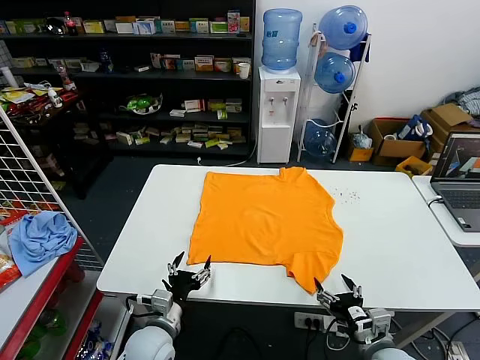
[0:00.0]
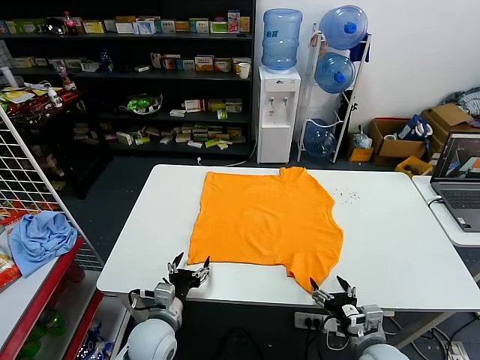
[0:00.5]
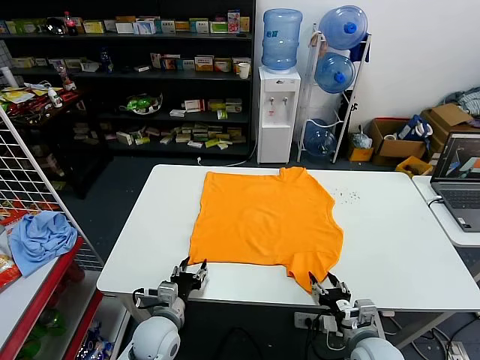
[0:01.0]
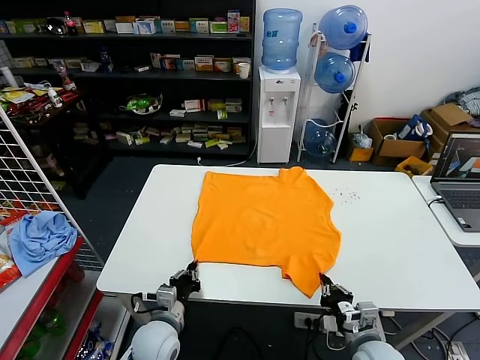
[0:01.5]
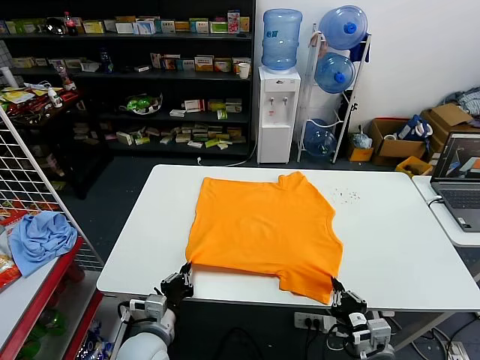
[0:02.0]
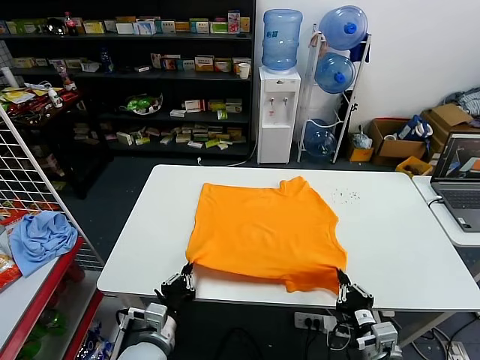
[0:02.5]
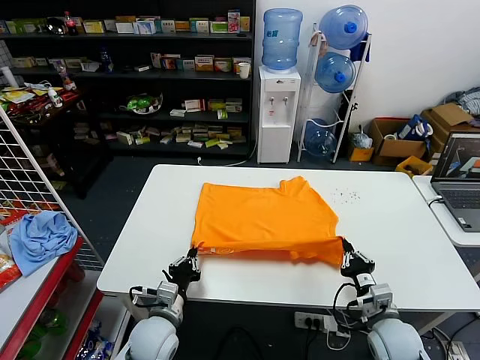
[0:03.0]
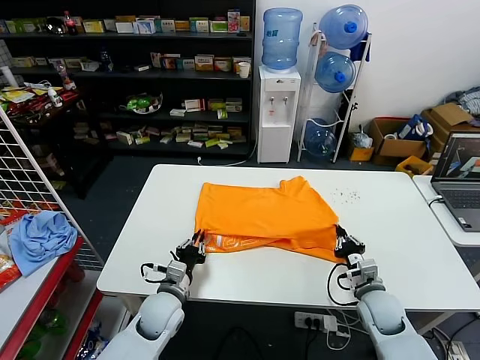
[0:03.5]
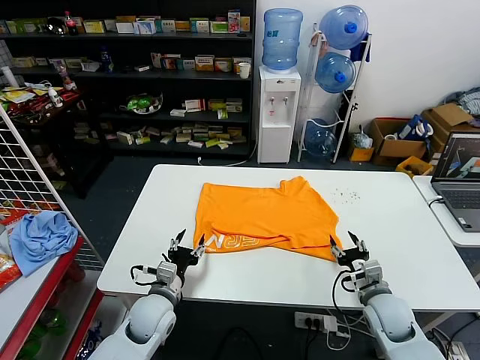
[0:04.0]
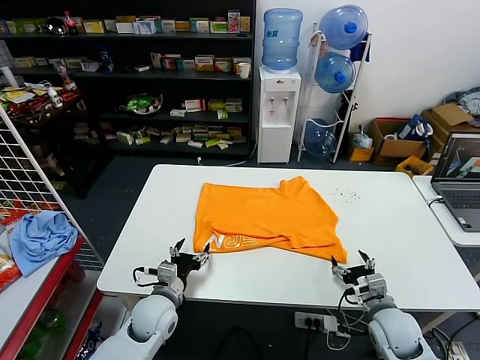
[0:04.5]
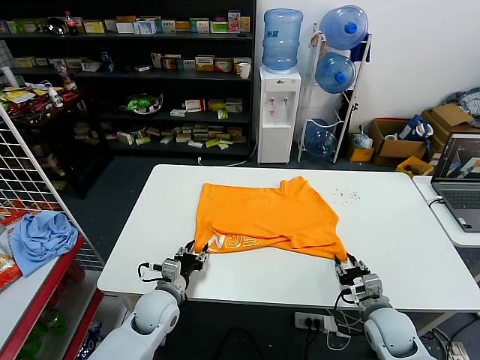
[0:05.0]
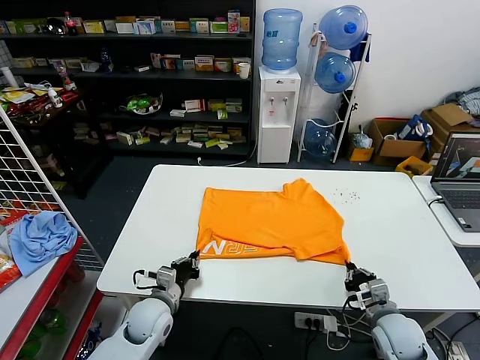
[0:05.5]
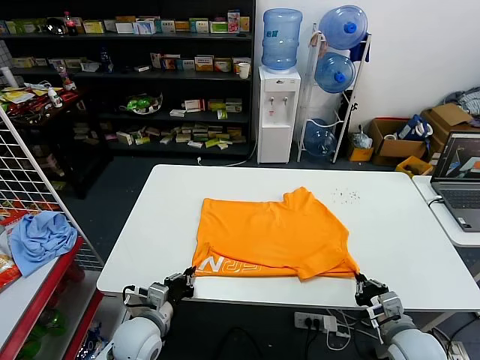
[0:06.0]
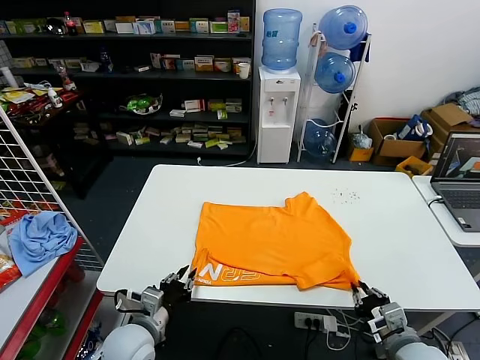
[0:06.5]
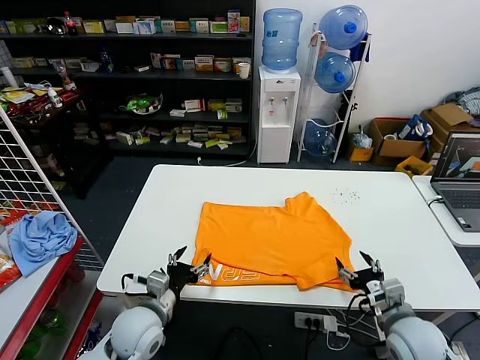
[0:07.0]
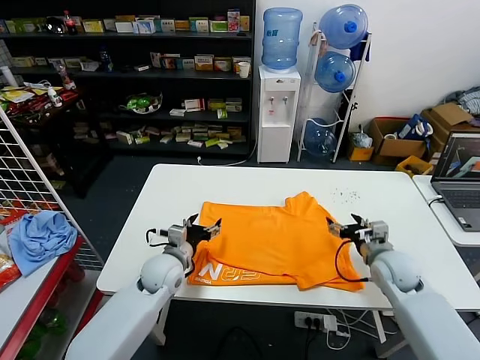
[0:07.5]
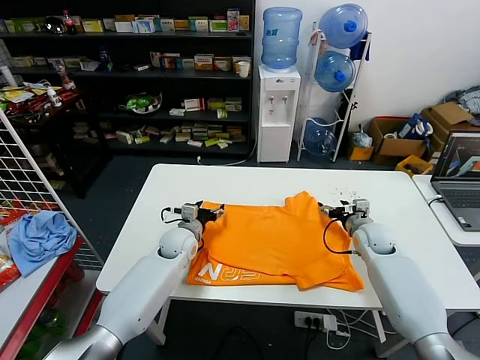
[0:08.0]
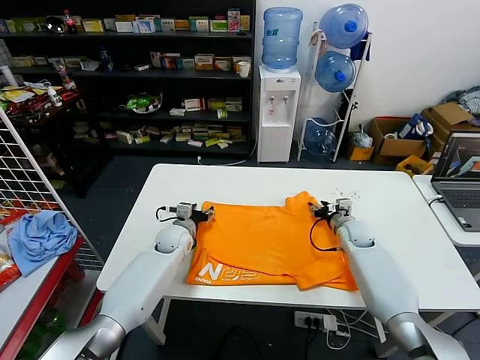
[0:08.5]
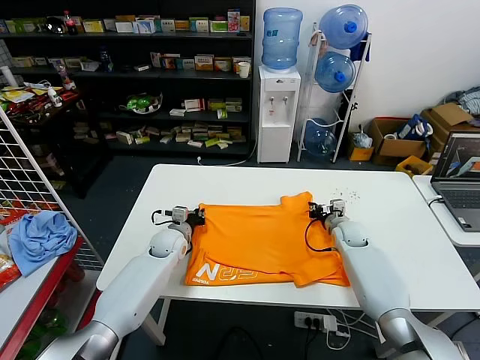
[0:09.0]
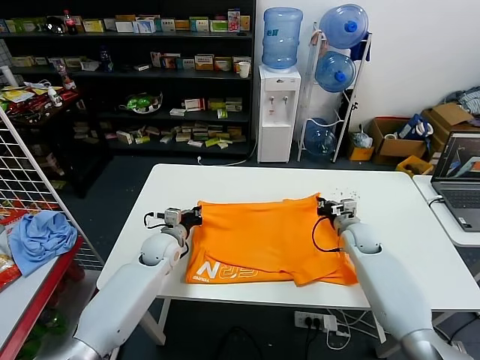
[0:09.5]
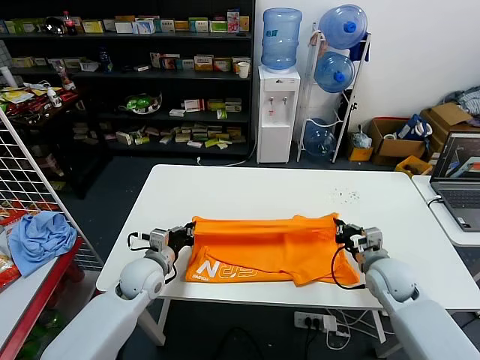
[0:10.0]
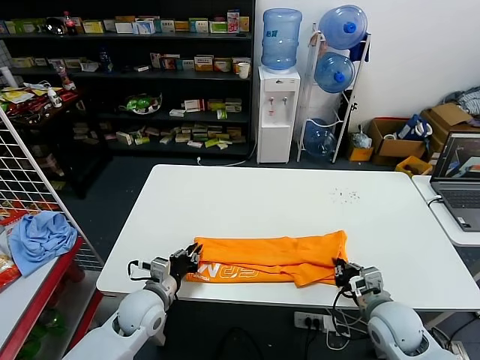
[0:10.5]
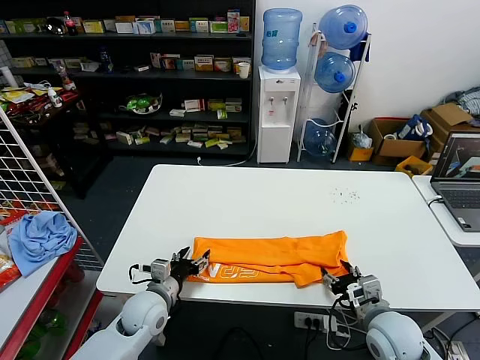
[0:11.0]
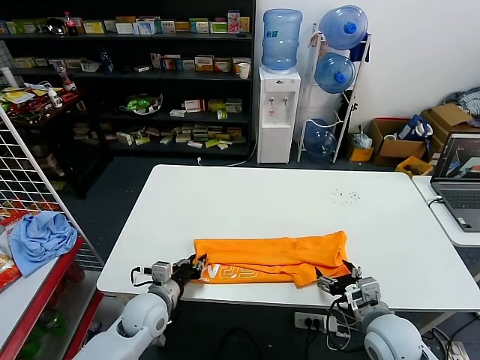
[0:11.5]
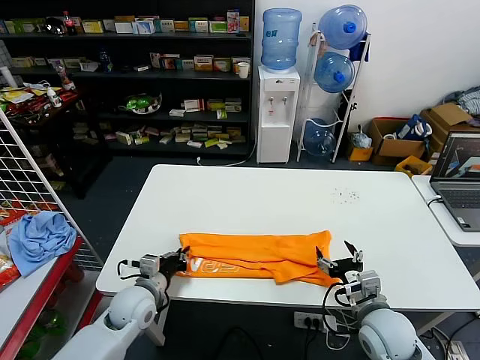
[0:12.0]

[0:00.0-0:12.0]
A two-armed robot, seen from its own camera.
Task of the whole recording: fold and organize the clothes.
Step, 0:00.0 to 0:01.5: use both grippers simultaneously to clamp the lower edge of the clothing fabric.
Step, 0:02.0 to 0:03.5: use both grippers to drag the lower edge of the fabric forward and fold it over the upper edge.
Step, 0:04.0 to 0:06.5: Drag the clothes downward with both gripper.
Step, 0:07.0 to 0:09.0: use both grippers simultaneously to clamp the upper edge of the clothing fabric.
Step, 0:09.5 to 0:10.5: use both grippers to drag the upper edge of the fabric backward and fold it over the lower edge.
Step, 0:11.0 to 0:11.5: use the left gripper to clamp the left edge of the fabric.
0:02.0 to 0:04.0: The right gripper travels forward by about 15 cm, and opens, while the left gripper goes some 10 cm forward, and opens.
0:04.0 to 0:06.0: The right gripper is displaced backward by about 10 cm, and closes its fingers, while the left gripper closes.
0:06.0 to 0:08.0: The two grippers go approximately 25 cm forward. The right gripper opens up. Meanwhile the left gripper opens up.
0:08.0 to 0:10.0: The left gripper is displaced backward and to the left by roughly 10 cm, and closes up. The right gripper is displaced backward by about 10 cm, and closes up.
0:10.0 to 0:12.0: The right gripper goes some 15 cm backward and to the left, and opens its fingers, while the left gripper travels backward by about 10 cm, and opens, then closes again.

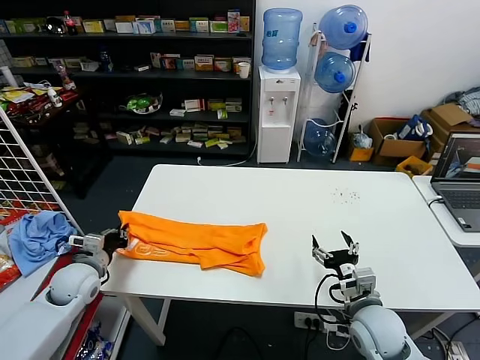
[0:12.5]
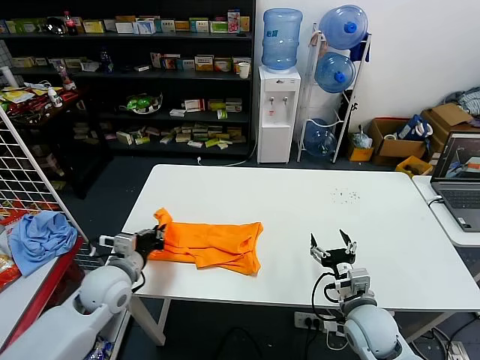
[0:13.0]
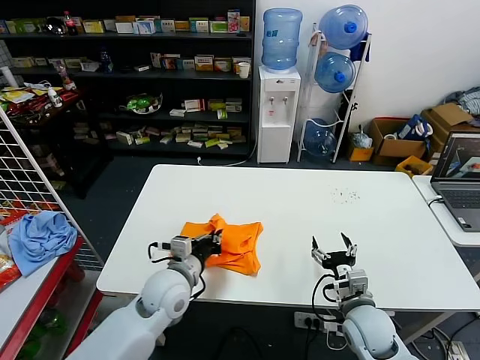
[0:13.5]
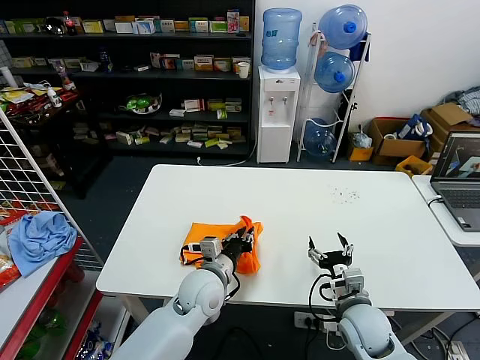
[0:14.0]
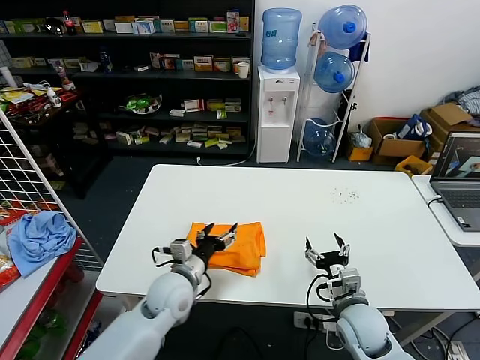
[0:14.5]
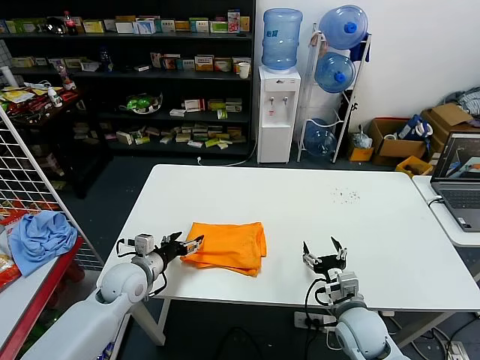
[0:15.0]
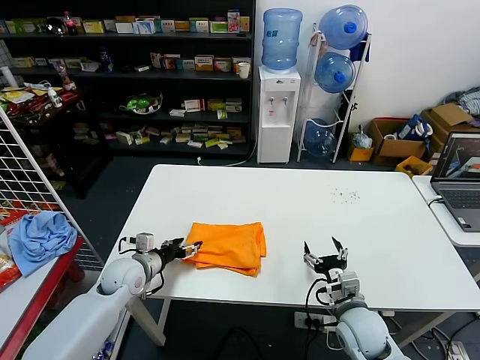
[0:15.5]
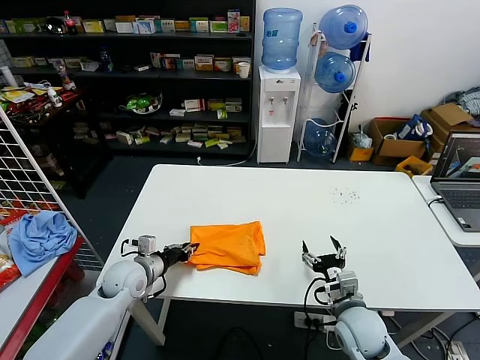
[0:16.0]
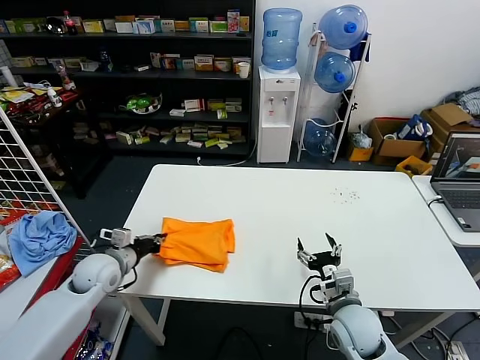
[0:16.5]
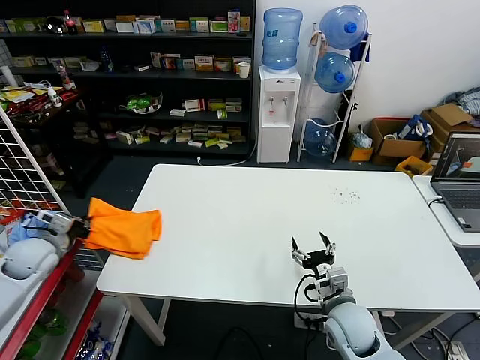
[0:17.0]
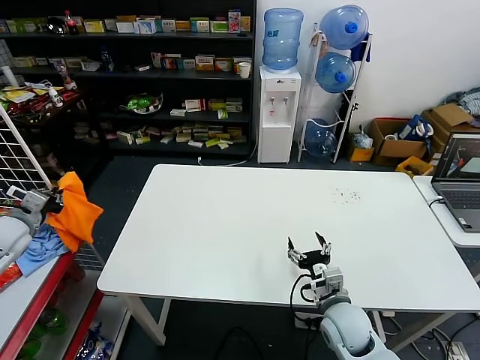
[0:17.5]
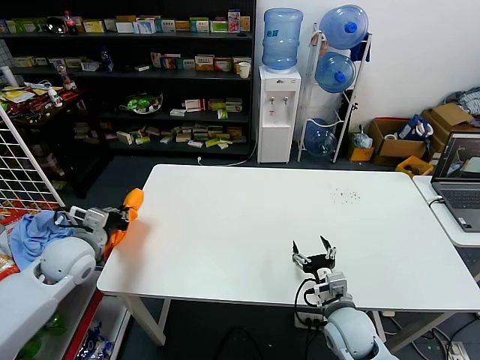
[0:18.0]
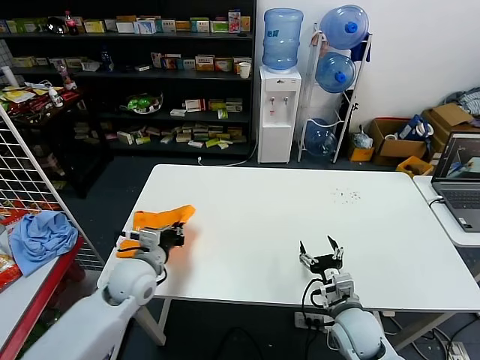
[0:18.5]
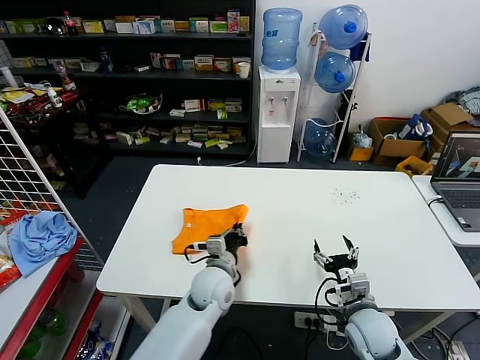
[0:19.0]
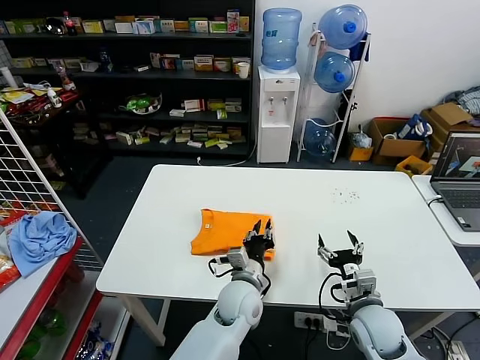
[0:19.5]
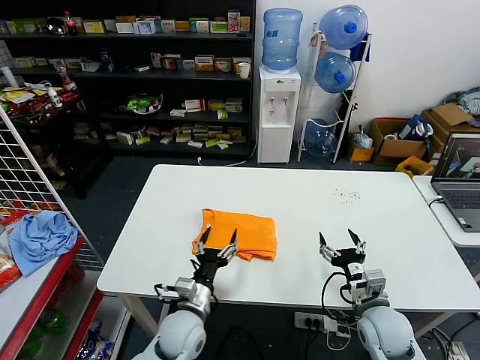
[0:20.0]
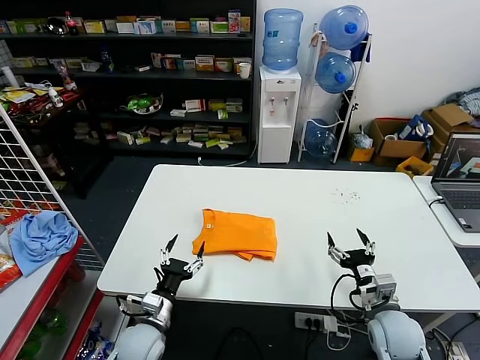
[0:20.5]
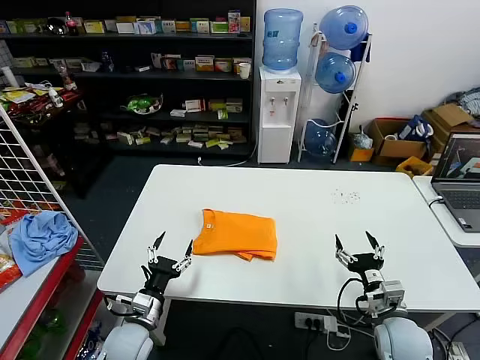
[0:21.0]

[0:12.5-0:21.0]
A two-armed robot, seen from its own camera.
Task of the whole recording: fold and organize the clothes.
Step, 0:12.5 to 0:14.0: use the left gripper to drag the left edge of the fabric to the left and folds it over the right edge.
Step, 0:14.5 to 0:19.0: Flip the folded clothes over with left gripper.
0:12.5 to 0:14.5: The left gripper goes about 25 cm to the right, and opens up.
0:14.5 to 0:16.5: The left gripper moves to the left, about 20 cm, and closes up.
0:16.5 to 0:19.0: The left gripper moves to the right, roughly 25 cm.
0:19.0 to 0:21.0: The right gripper travels to the right by some 5 cm, while the left gripper shifts some 20 cm to the left and backward, and opens up.

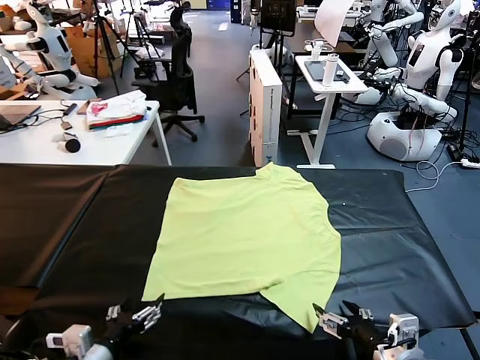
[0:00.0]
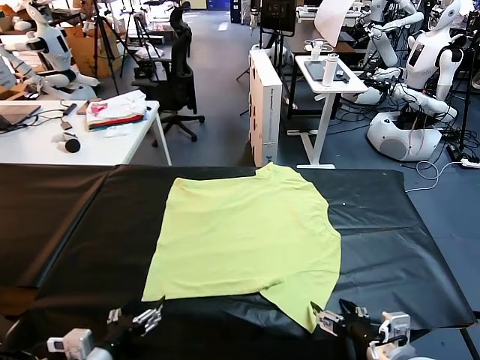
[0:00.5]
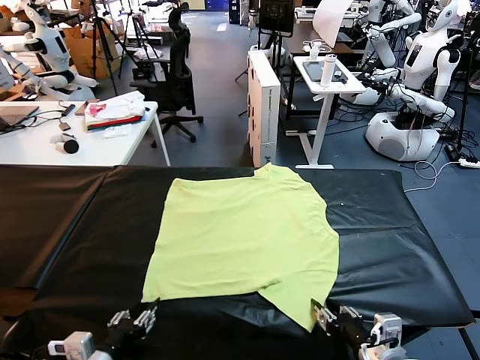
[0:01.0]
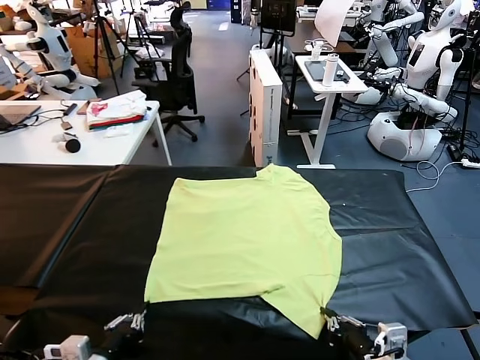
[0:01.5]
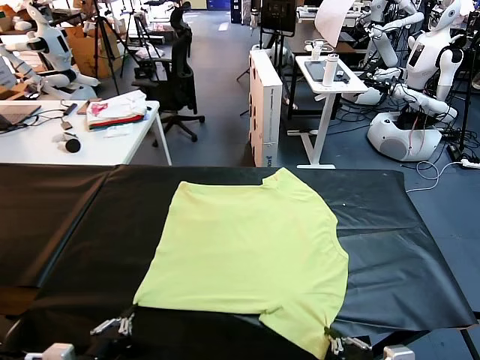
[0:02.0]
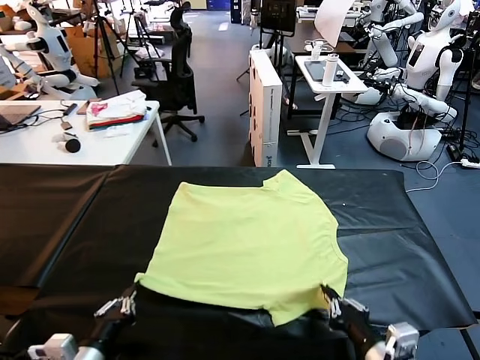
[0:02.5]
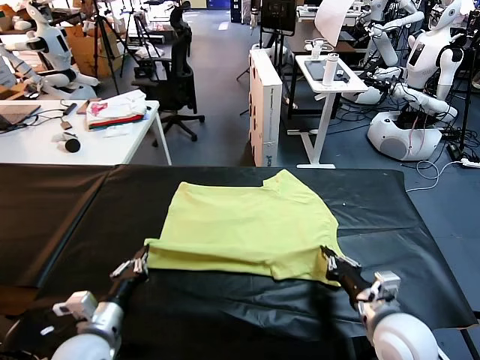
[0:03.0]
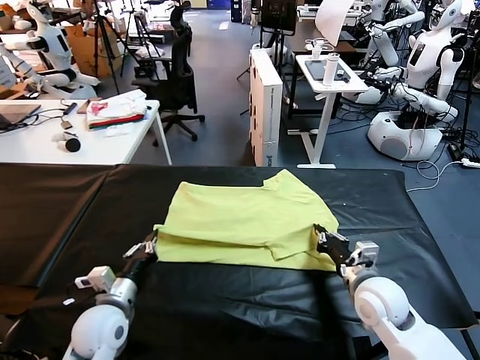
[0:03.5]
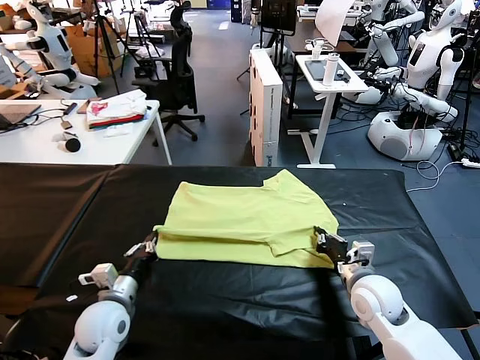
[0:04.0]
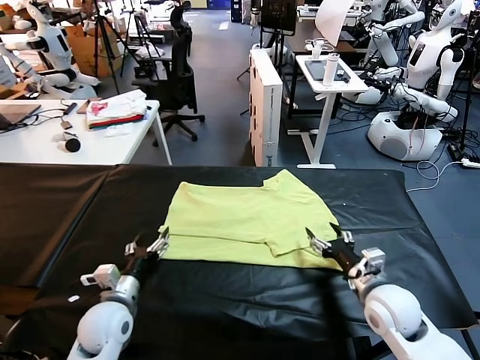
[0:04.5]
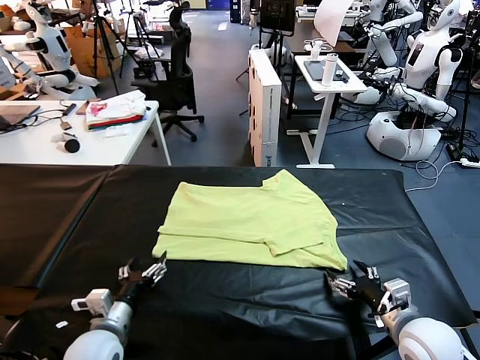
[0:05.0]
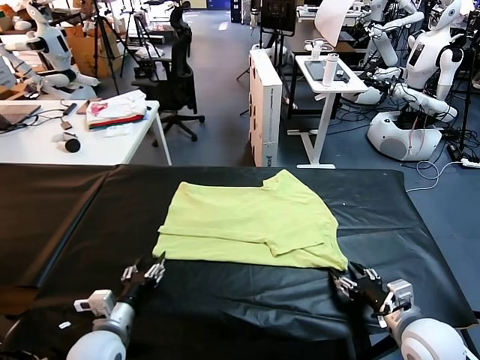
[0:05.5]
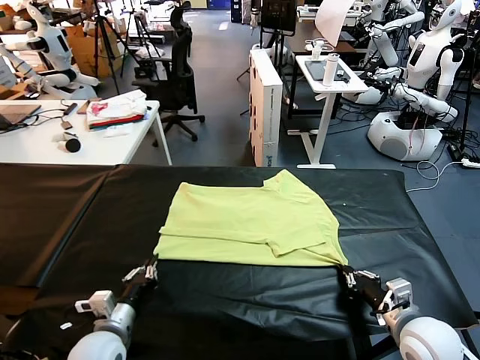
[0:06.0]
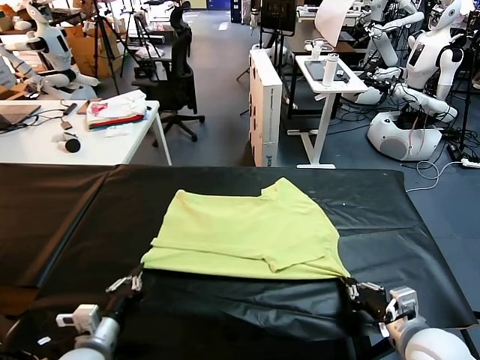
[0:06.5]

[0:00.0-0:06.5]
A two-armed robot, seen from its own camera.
Task of the whole recording: fold and organize the clothes.
Step, 0:00.0 to 0:01.5: use both grippers simultaneously to clamp the lower edge of the clothing fabric.
Step, 0:02.0 to 0:04.5: use both grippers to drag the lower edge of the fabric forward and fold it over the upper edge.
0:02.0 to 0:04.5: The right gripper moves forward and to the right, about 15 cm, and opens its fingers. Meanwhile the left gripper travels forward and downward by about 15 cm, and opens its fingers.
0:04.5 to 0:06.5: The two grippers go roughly 5 cm backward. The right gripper closes up. The left gripper closes.
